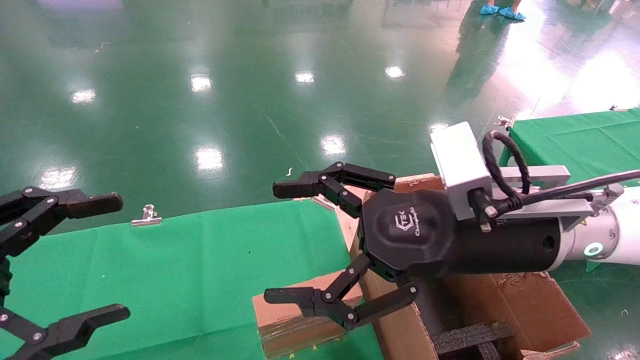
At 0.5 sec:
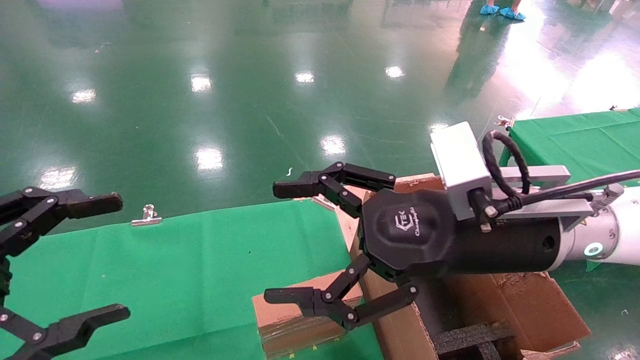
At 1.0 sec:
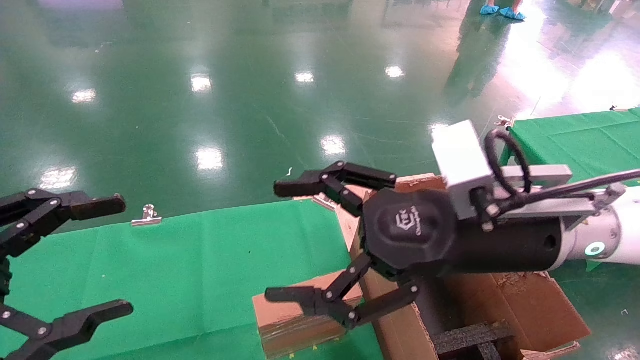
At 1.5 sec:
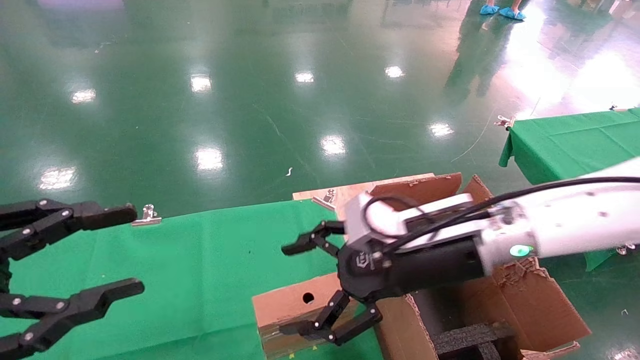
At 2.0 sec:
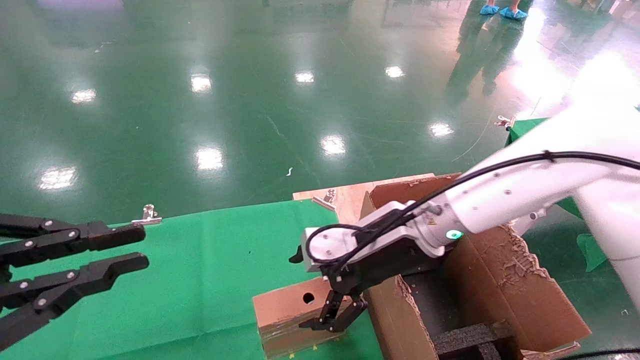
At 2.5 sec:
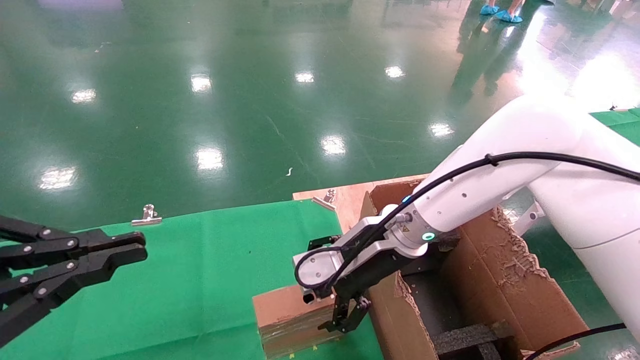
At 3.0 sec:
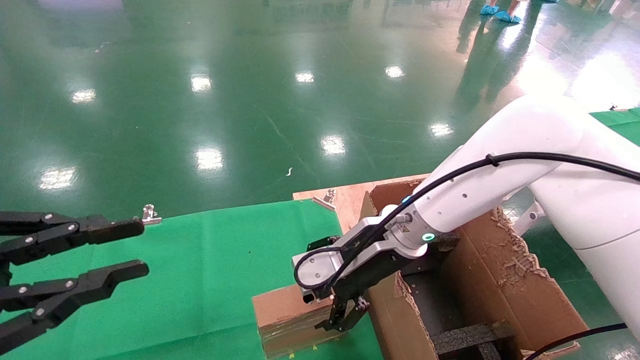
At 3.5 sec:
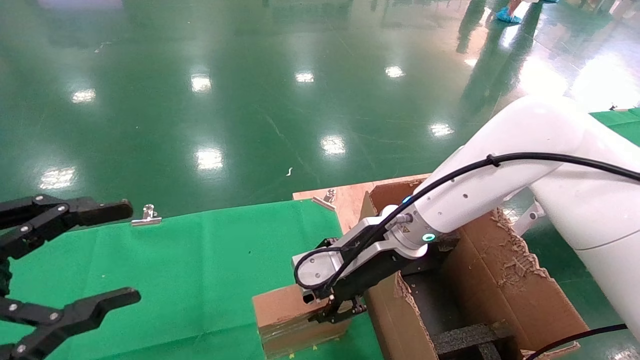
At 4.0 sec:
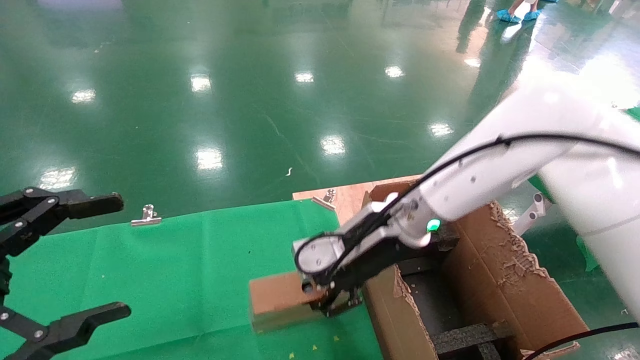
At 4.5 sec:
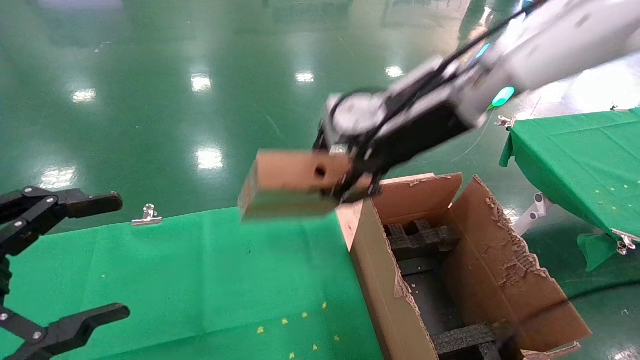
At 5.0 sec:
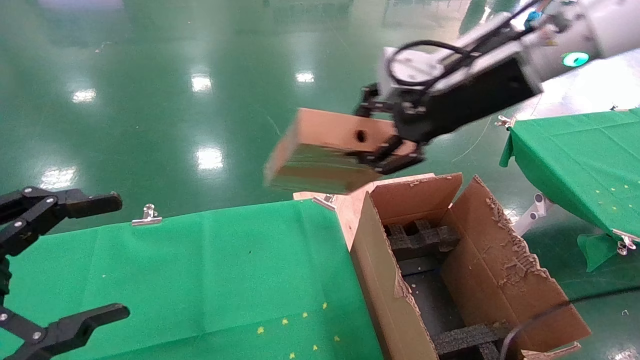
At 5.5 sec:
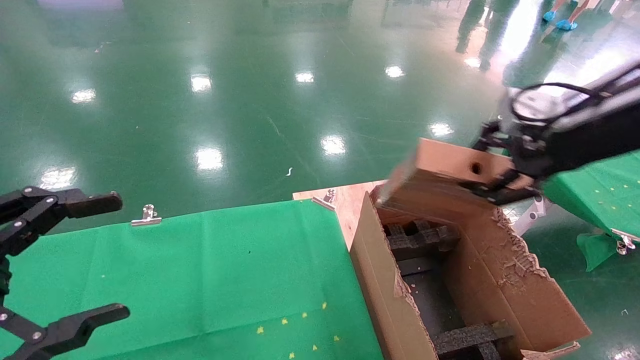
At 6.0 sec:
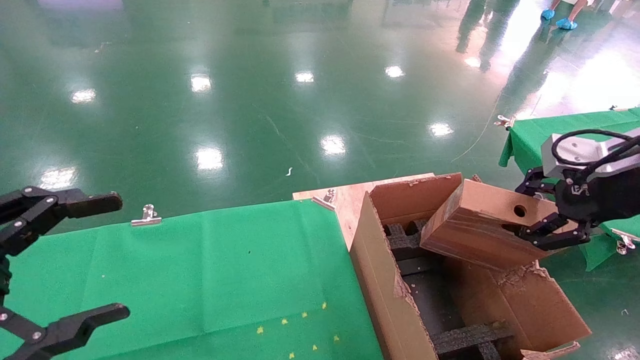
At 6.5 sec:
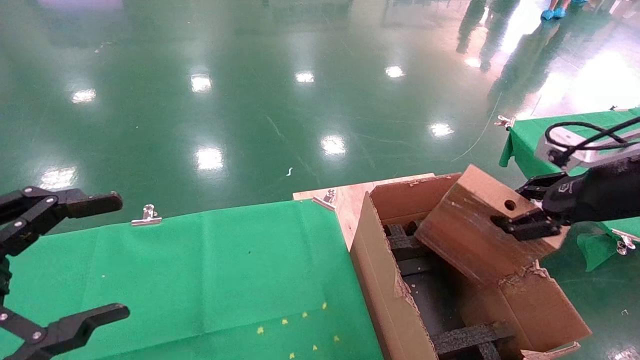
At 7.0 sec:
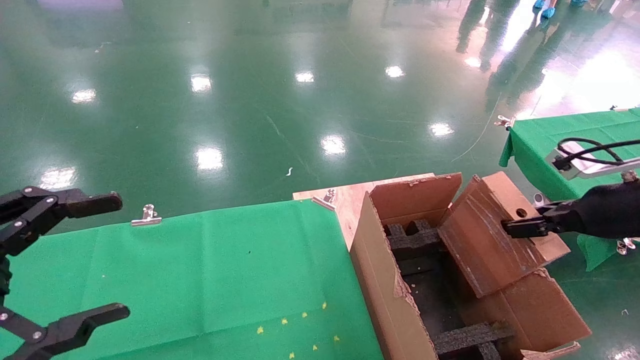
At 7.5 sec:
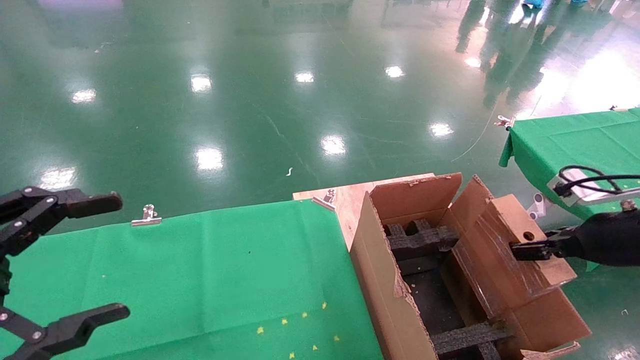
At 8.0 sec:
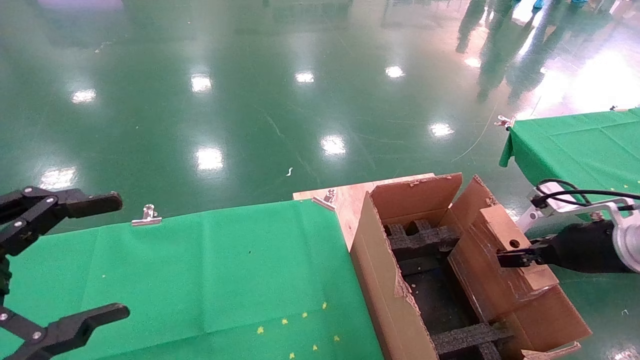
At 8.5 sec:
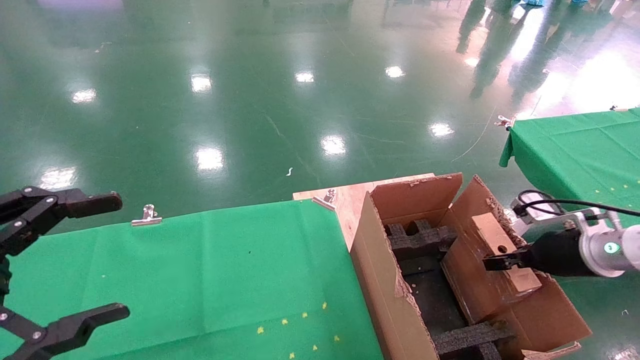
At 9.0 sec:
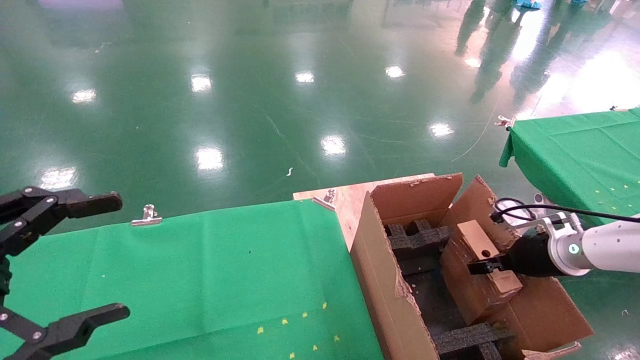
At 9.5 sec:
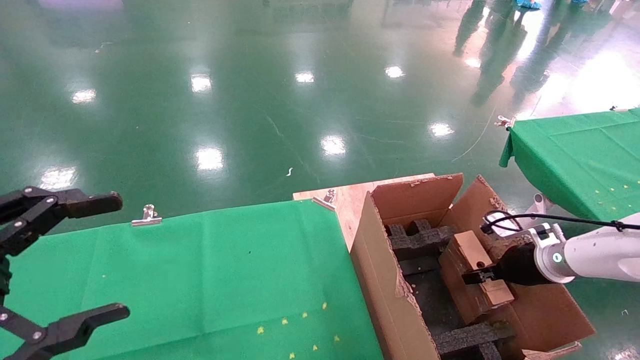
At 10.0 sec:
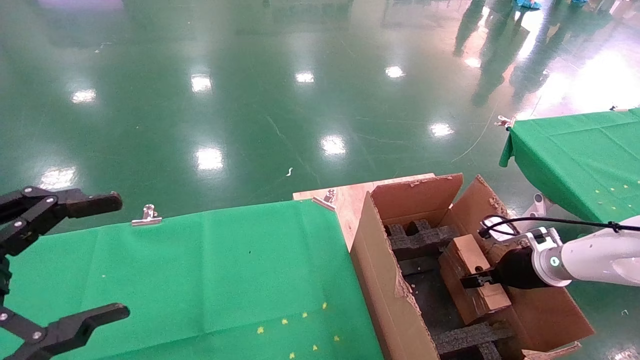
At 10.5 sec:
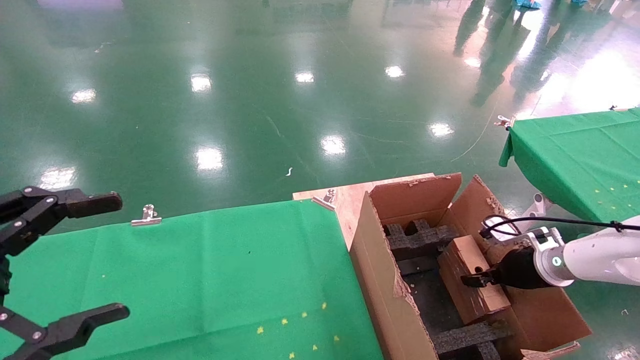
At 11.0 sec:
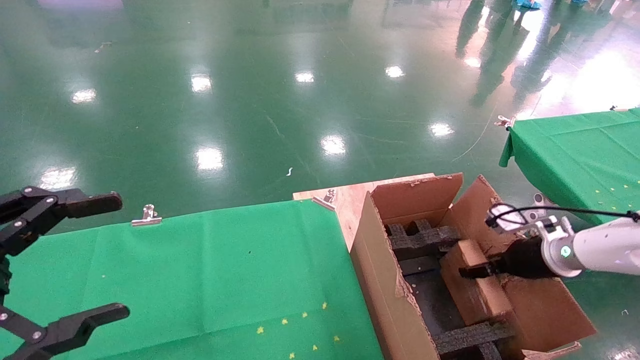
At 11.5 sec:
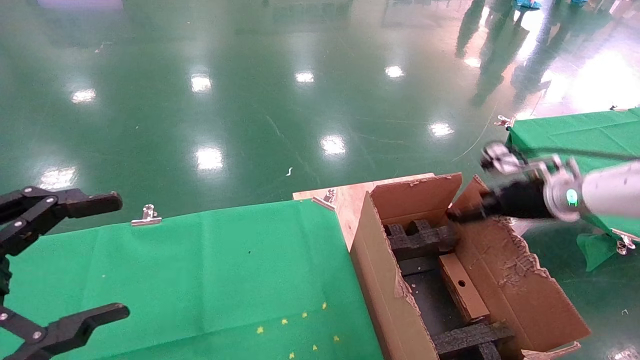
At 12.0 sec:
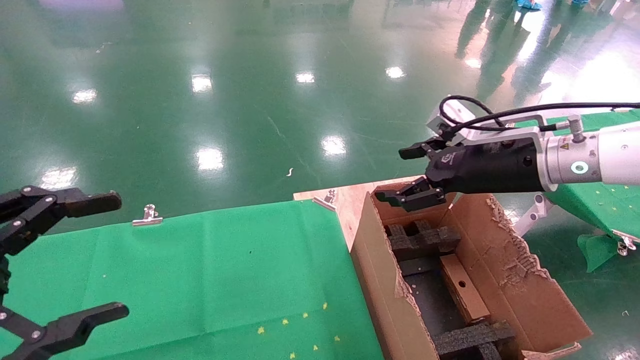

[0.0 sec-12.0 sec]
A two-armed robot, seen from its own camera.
Task of the whole recording: using a robotic arm to pick up a cardboard box and palace it the carton.
Step, 1.5 sec to 3.5 sec: Pick up the mouse and the power cord paper box.
Step, 4.0 sec to 11.0 sec: Place the mouse and the power cord paper box into the container.
0.0 sec to 2.0 sec: The right gripper is displaced forward and downward by approximately 10 cm; the left gripper closes.
2.0 sec to 4.0 sec: The right gripper closes. The left gripper opens.
4.0 sec to 6.0 sec: The right gripper travels to the right and backward by about 30 cm.
6.0 sec to 8.0 sec: The right gripper is displaced downward by about 15 cm.
8.0 sec to 10.0 sec: The right gripper goes some 15 cm downward and forward.
10.0 sec to 12.0 sec: The right gripper shifts about 25 cm upward and to the left, and opens.

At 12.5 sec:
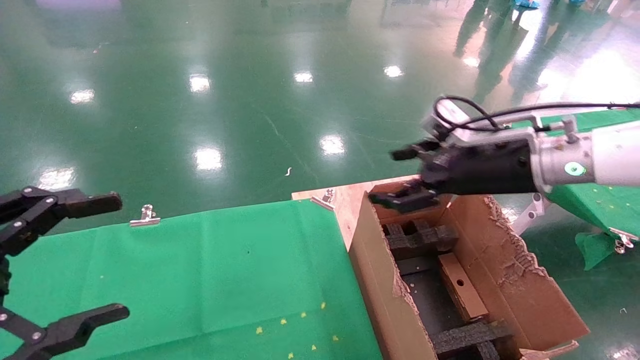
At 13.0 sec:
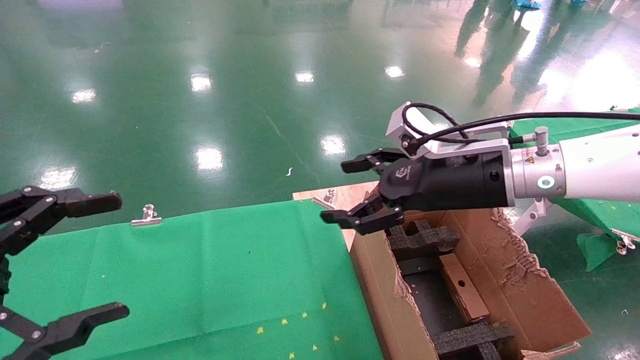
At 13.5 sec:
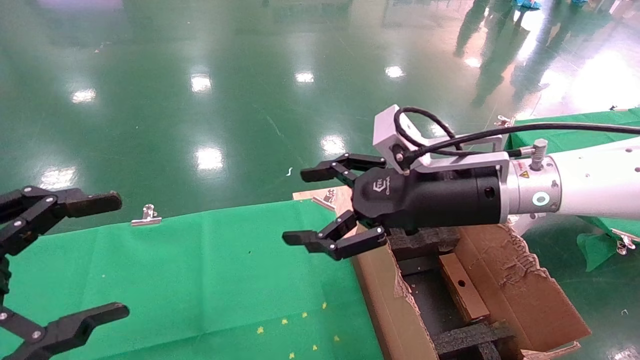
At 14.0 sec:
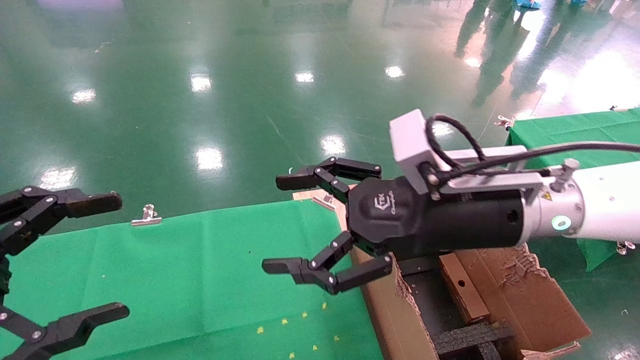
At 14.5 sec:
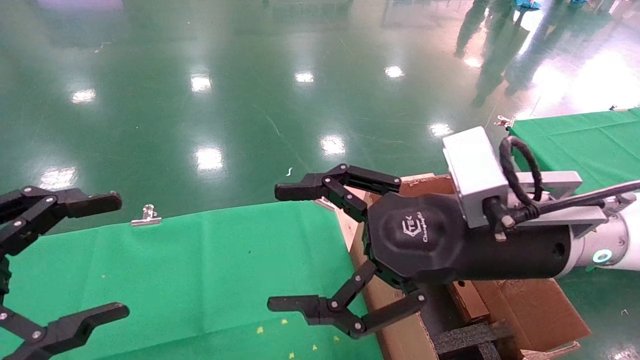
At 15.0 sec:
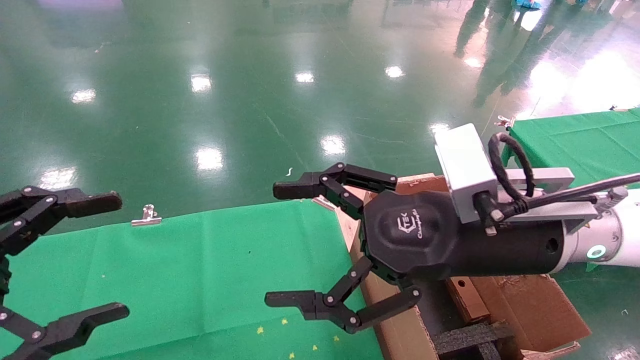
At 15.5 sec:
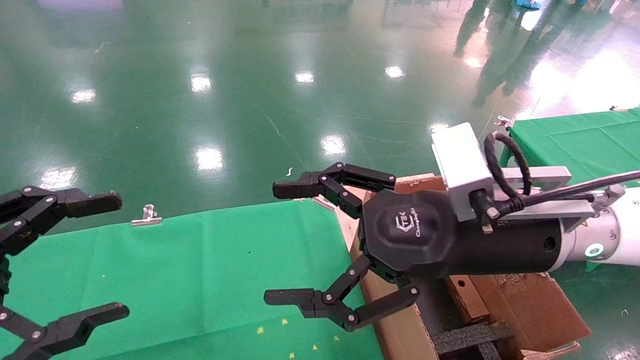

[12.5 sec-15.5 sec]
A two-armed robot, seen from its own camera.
Task of the whole recording: using a robotic arm to pick up a cardboard box and palace it the carton.
12.5 sec to 14.0 sec: The right gripper moves to the left and backward, roughly 15 cm.
14.0 sec to 15.5 sec: The grippers stay close to where they were, moving slightly.
